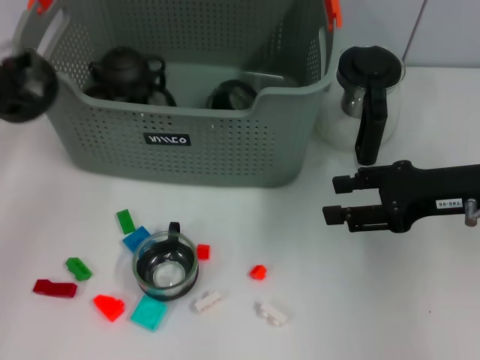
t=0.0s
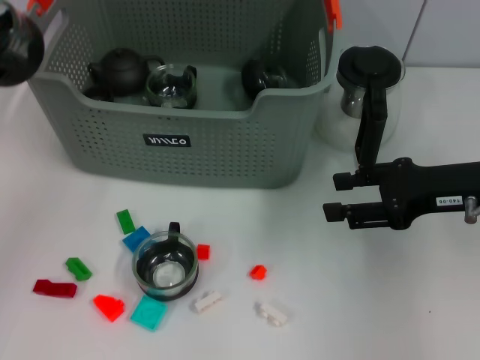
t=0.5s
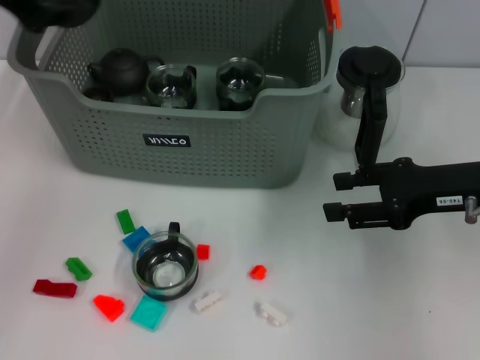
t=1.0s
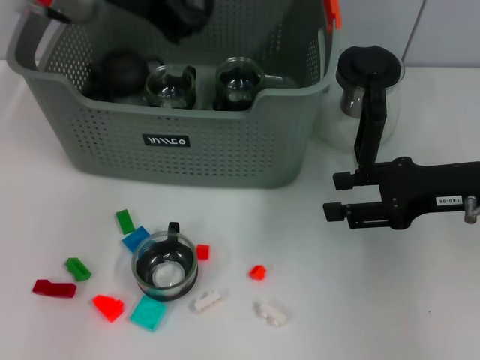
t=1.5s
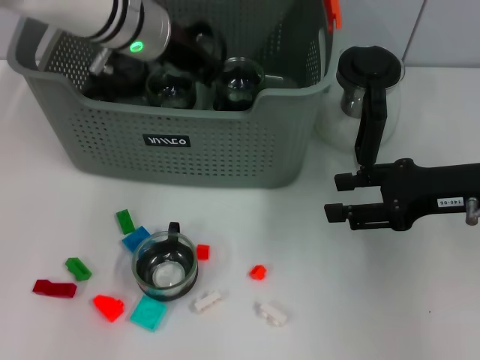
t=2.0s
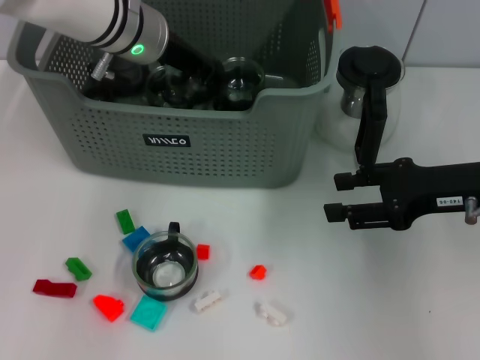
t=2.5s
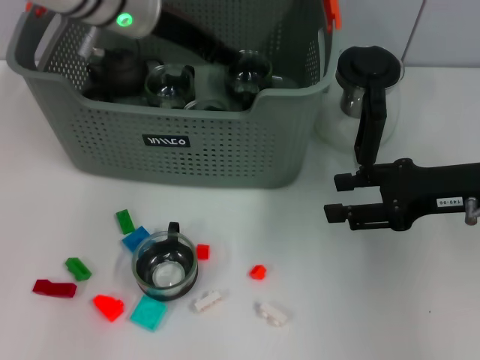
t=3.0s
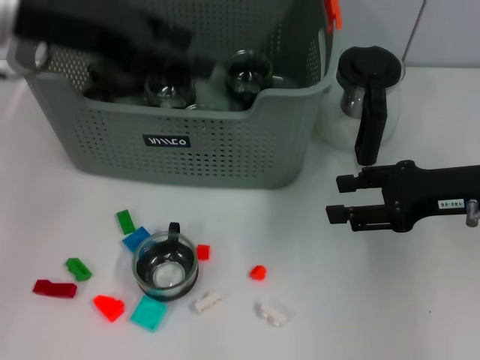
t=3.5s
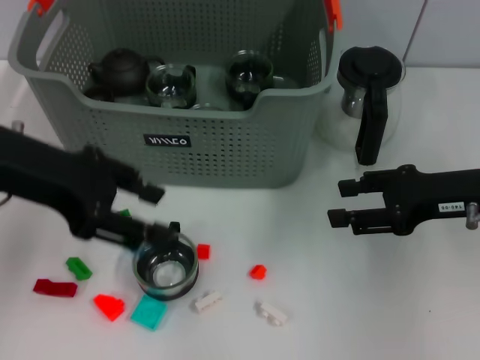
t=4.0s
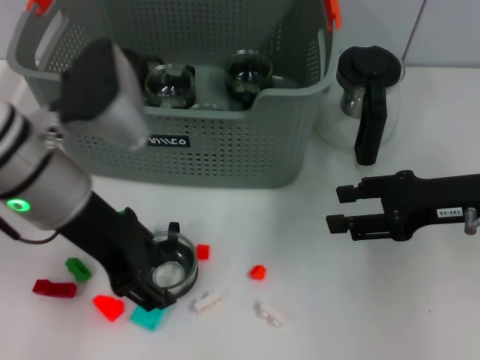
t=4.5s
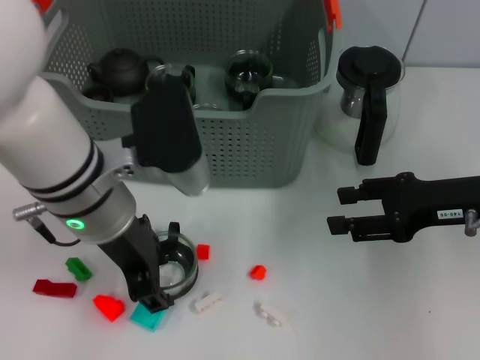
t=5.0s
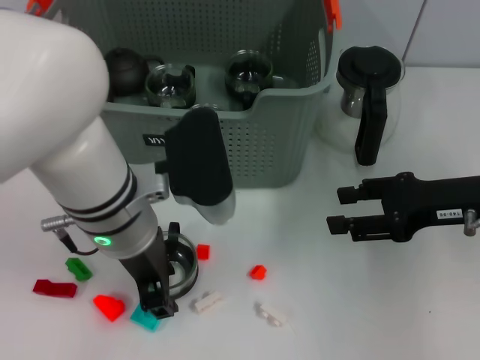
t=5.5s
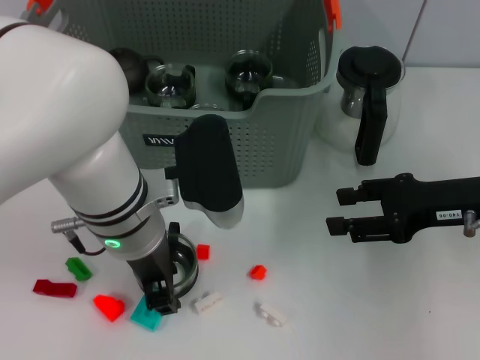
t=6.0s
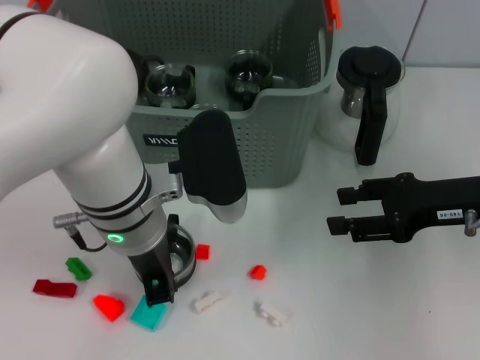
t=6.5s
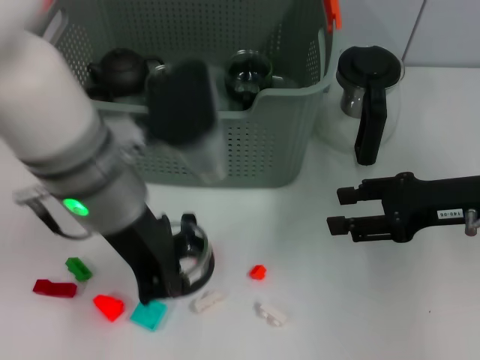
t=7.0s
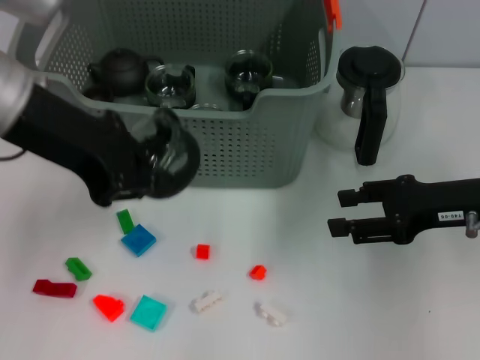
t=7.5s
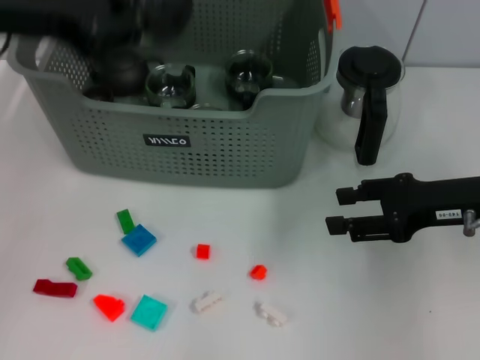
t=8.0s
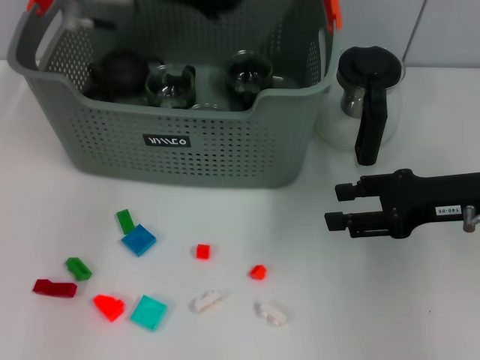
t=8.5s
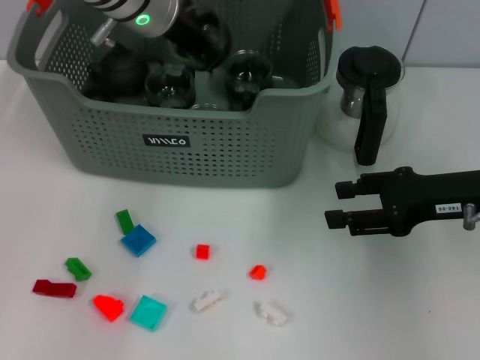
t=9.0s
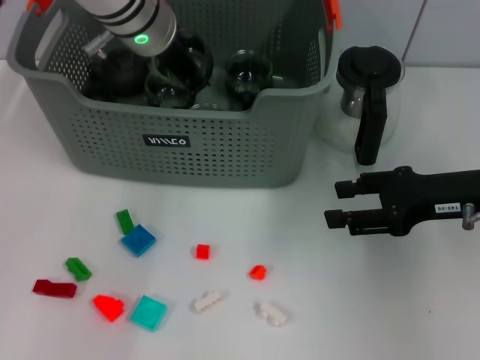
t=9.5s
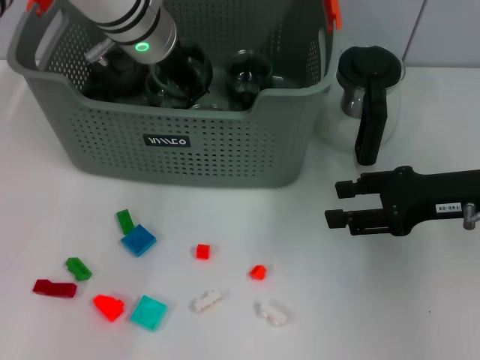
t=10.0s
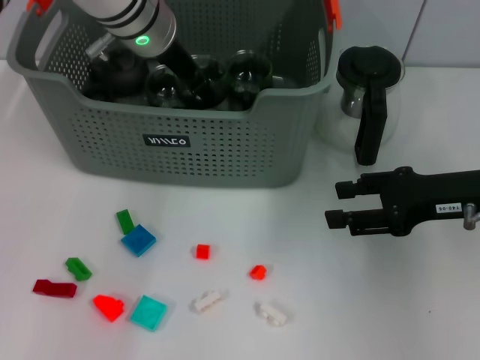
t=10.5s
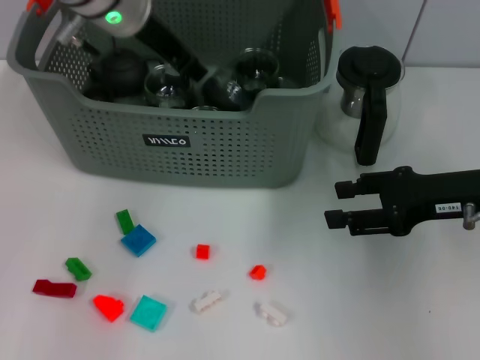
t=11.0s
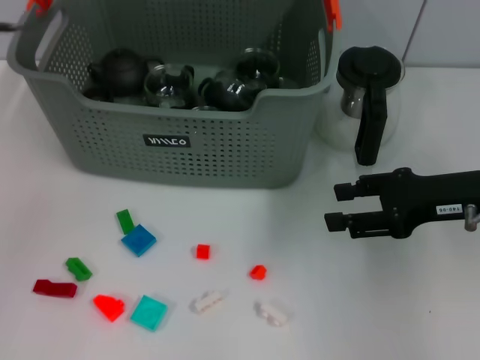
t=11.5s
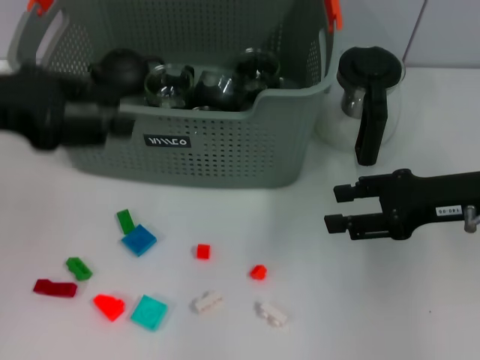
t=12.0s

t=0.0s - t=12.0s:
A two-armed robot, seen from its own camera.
Task of the whole recording: pick up the teacup on the table and place it into the storage bin, pick up the block on the table and place it into the storage bin.
Step, t=0.0s - t=2.5s: Place the cup in the storage box with left gripper.
Step, t=3.0s - t=6.0s: Grasp the cup with left gripper.
Step, t=6.5s - t=11.0s: Place the cup in the storage box with left gripper.
t=0.0s - t=2.0s: The left gripper travels to the right, forward and downward by about 20 cm.
t=2.0s - t=4.0s: The left gripper goes some 20 cm backward and to the left, and opens its fingers.
t=4.0s - t=6.0s: The left gripper shifts some 15 cm to the right and downward.
t=6.0s - t=8.0s: The left gripper travels upward and to the left by approximately 20 cm, and closes up.
t=8.0s - t=10.0s: The left gripper shifts some 20 cm to the right, forward and downward.
t=10.0s - t=12.0s: The left gripper travels to the left and backward by approximately 25 cm, and opens.

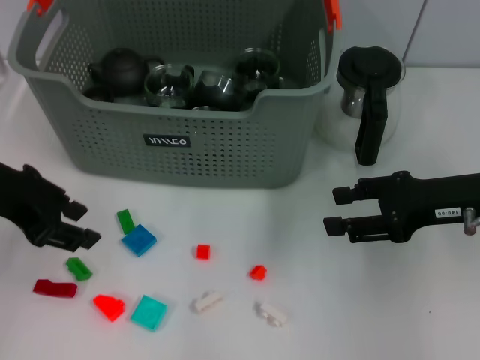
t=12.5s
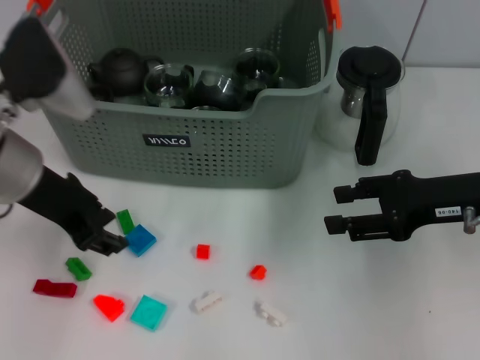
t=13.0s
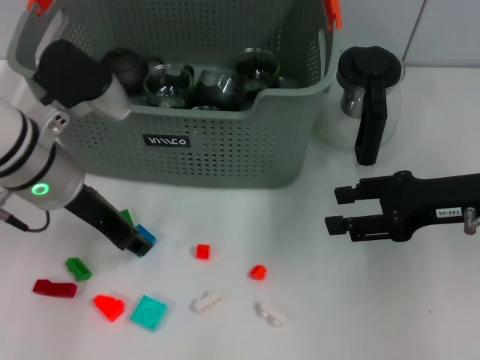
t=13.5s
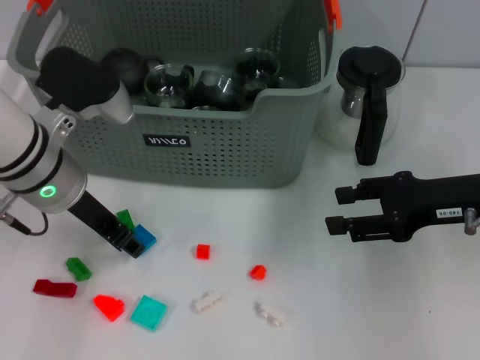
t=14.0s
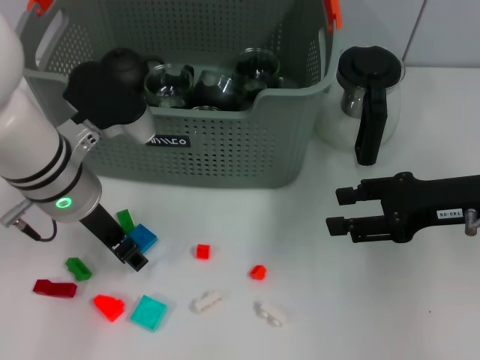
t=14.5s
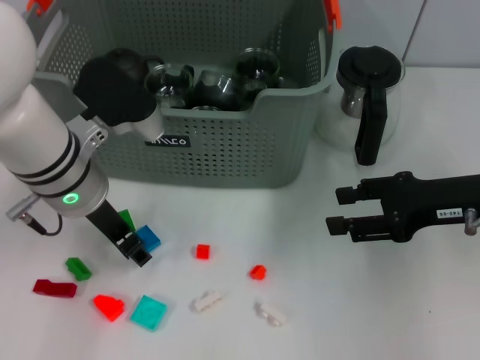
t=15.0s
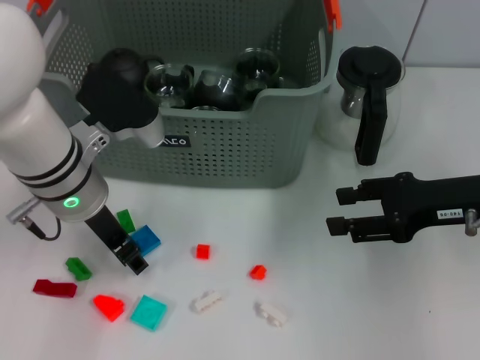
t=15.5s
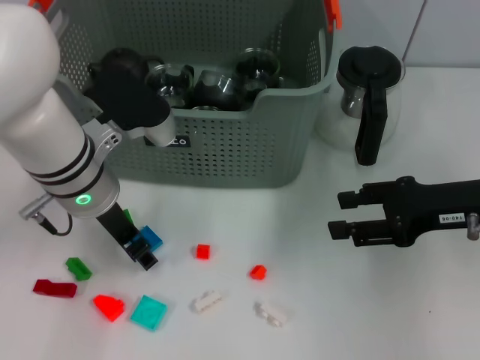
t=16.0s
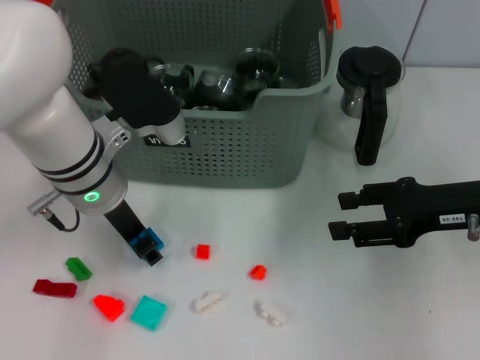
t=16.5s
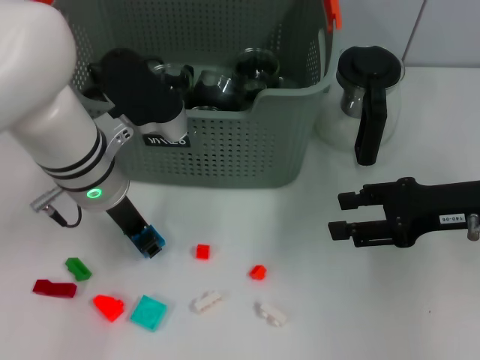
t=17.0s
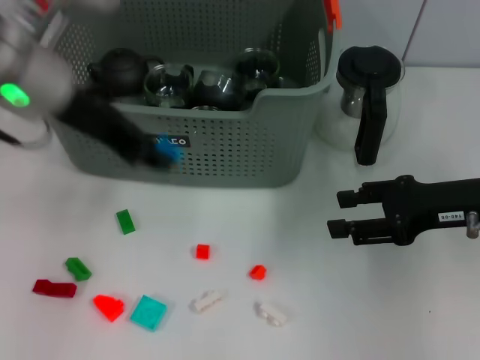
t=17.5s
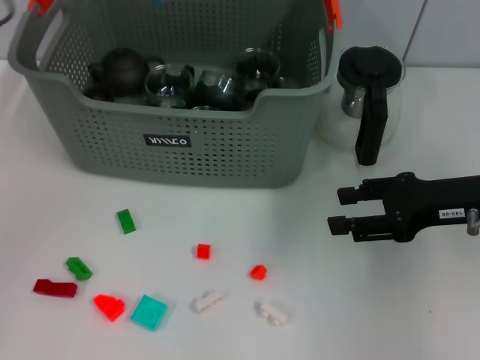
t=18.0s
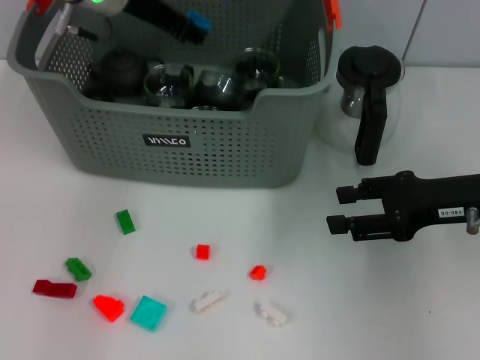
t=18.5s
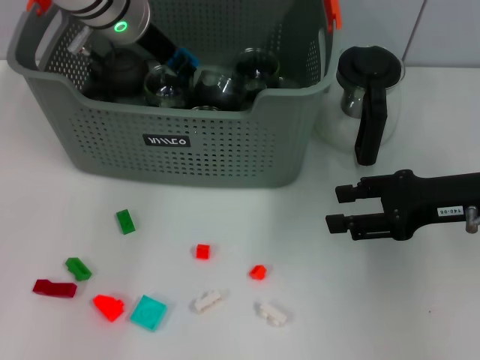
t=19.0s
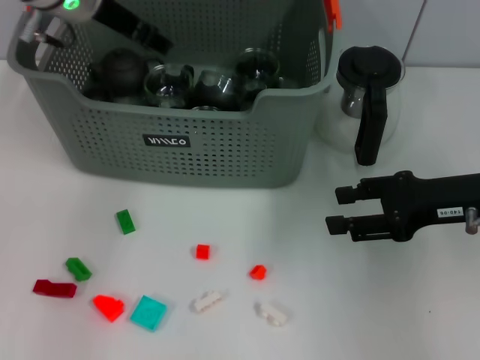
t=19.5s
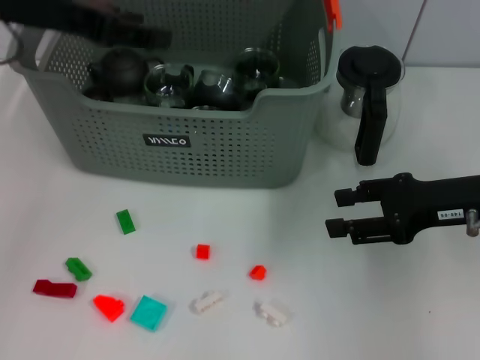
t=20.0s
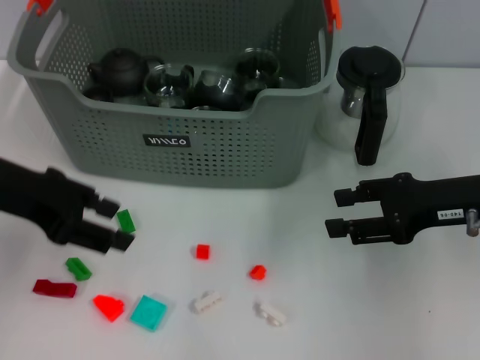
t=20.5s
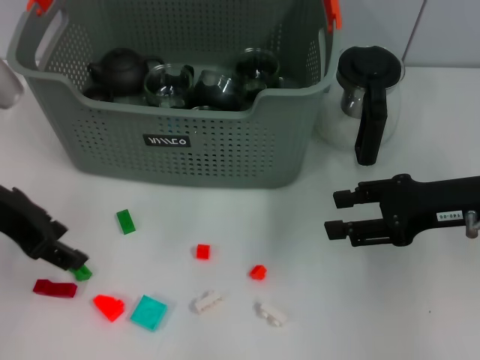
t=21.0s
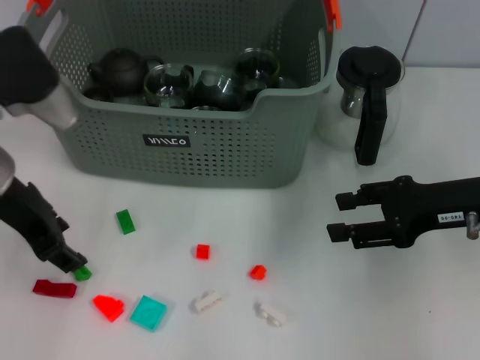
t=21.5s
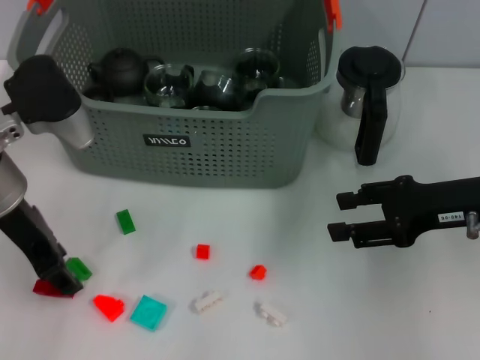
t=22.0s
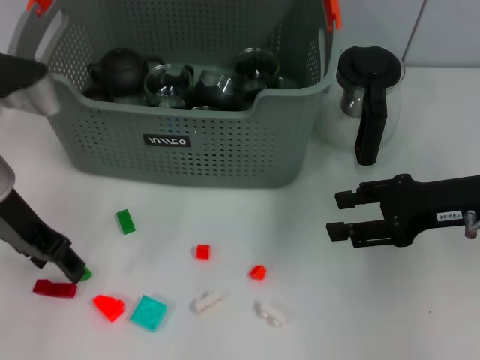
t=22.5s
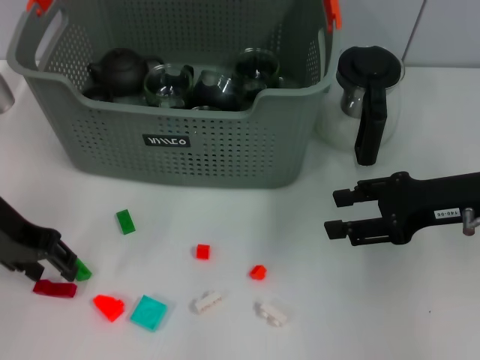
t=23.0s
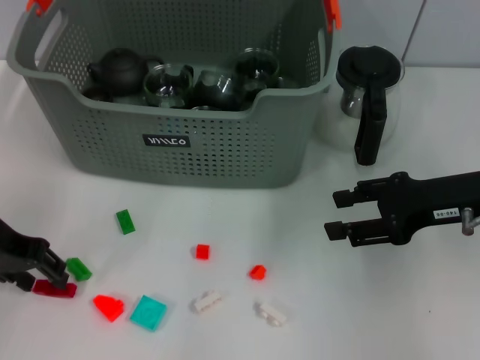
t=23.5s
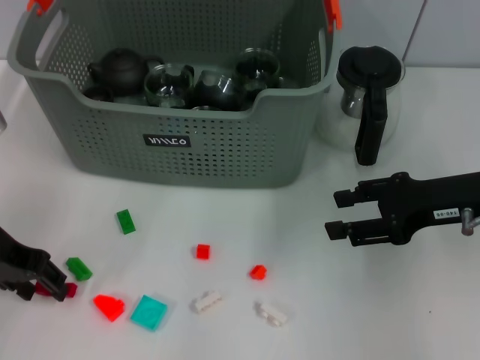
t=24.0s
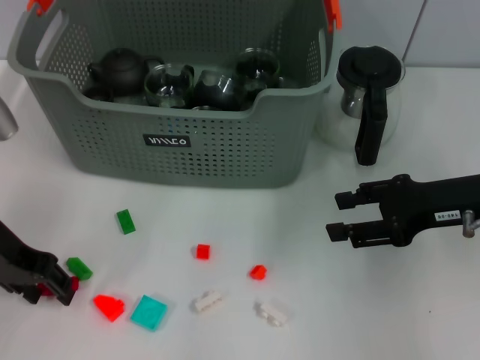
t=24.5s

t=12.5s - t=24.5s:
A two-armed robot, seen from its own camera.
Task of the whole recording: pick up the teacup on the table and place it into the storage bin, pick up the block on the table and place it into the storage bin.
Step, t=12.5s - t=16.5s: Grasp the dark blue block with left gripper.
Step, t=17.0s - t=19.5s: Place the dark blue block in the storage box with left gripper.
t=12.5s - t=14.5s: The left gripper heads to the right and downward, covering some 10 cm.
t=14.5s - t=16.5s: The grippers make only small movements.
t=16.5s - t=18.5s: The left gripper goes some 15 cm forward and upward.
t=18.5s - t=20.5s: The left gripper is displaced backward and to the left by about 20 cm.
t=20.5s - t=22.5s: The left gripper moves some 5 cm.
t=22.5s - t=24.5s: The left gripper changes place by roughly 5 cm.

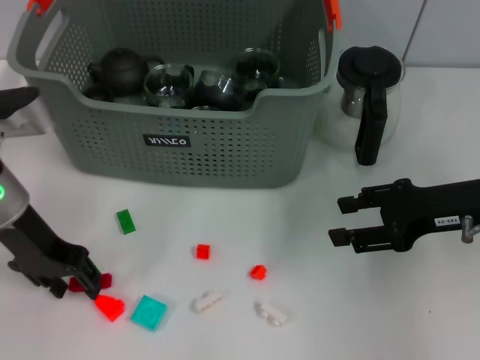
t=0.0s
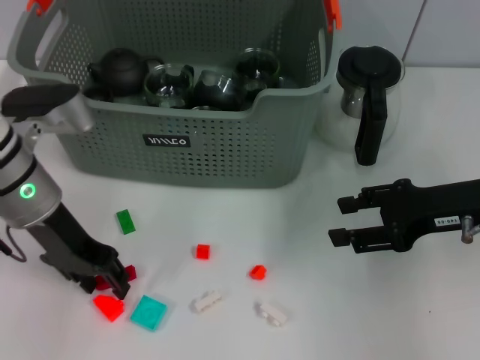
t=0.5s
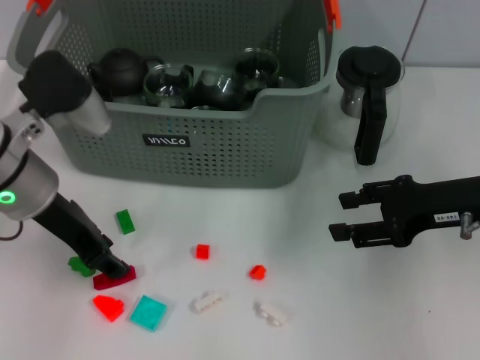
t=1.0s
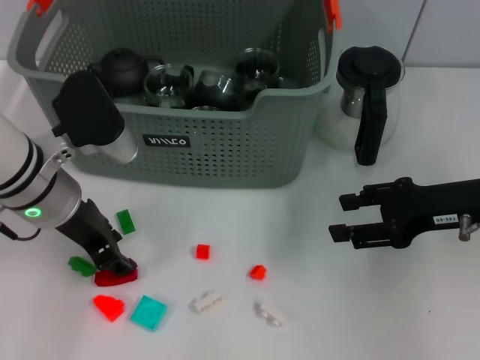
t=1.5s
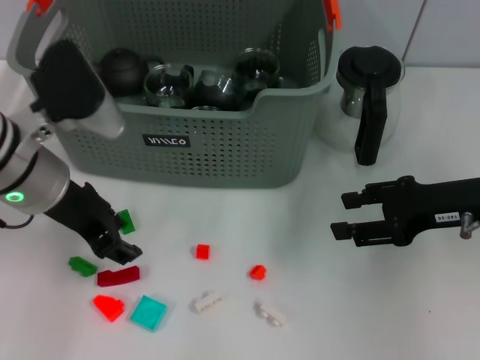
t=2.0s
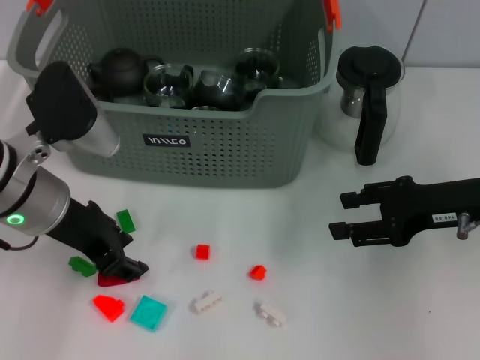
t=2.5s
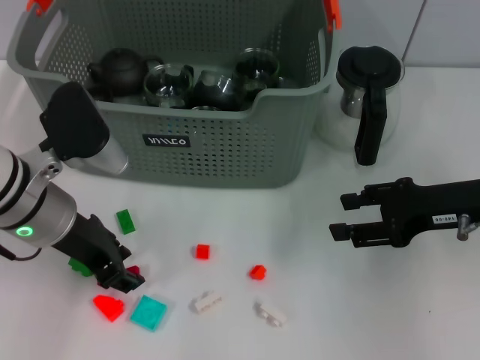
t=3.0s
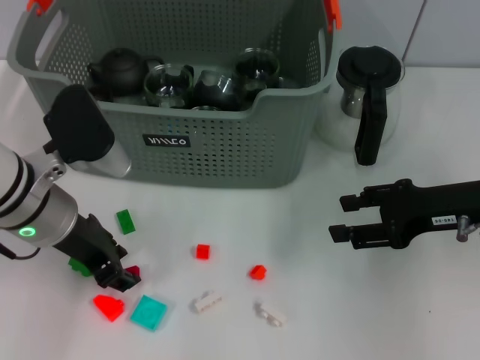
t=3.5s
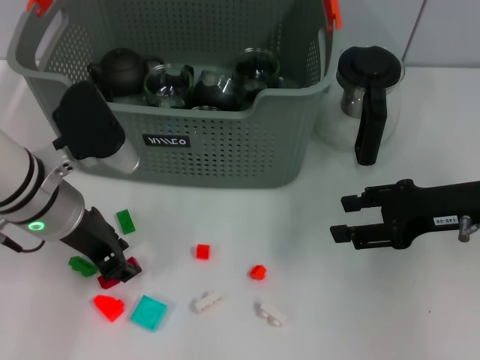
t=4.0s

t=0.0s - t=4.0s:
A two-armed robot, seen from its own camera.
Task of the whole recording: pick up the teacup on the table and place it into the storage bin, pick up the block on the table and place it into the storage bin.
t=0.0s - t=2.0s: The left gripper changes place by some 5 cm.
t=2.0s - t=4.0s: There are only small adjustments of the grippers.
